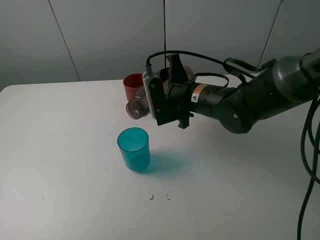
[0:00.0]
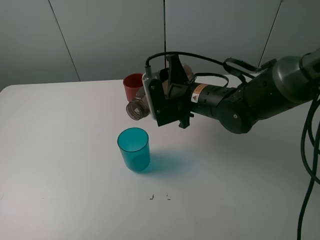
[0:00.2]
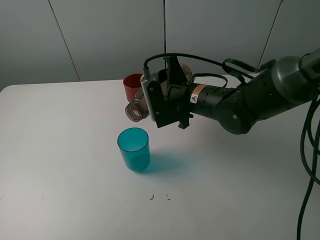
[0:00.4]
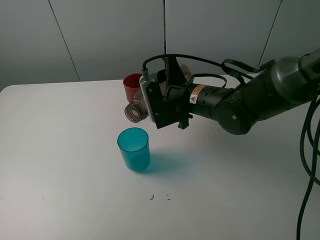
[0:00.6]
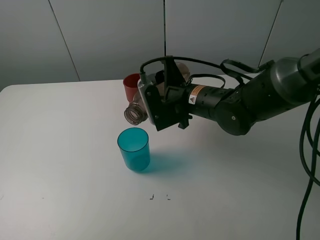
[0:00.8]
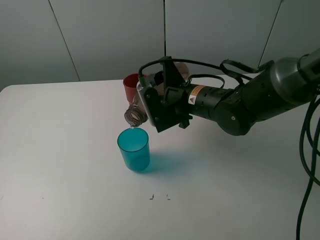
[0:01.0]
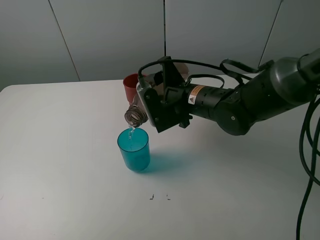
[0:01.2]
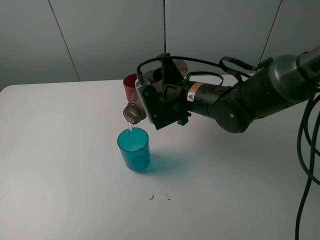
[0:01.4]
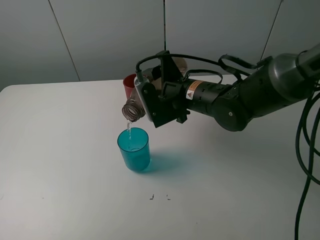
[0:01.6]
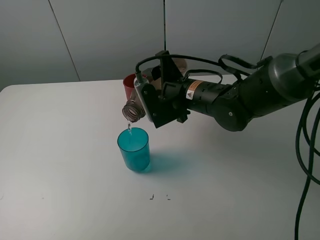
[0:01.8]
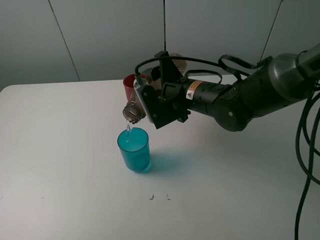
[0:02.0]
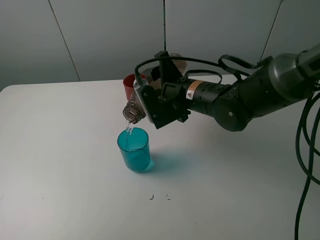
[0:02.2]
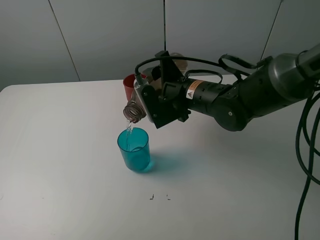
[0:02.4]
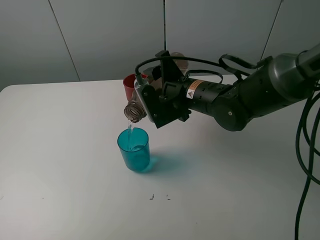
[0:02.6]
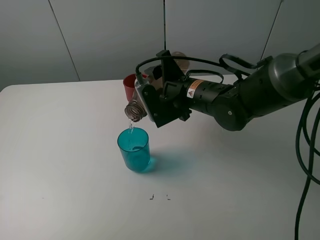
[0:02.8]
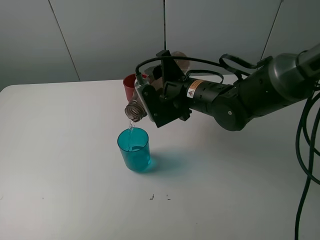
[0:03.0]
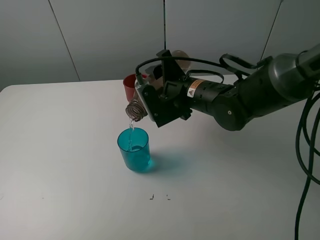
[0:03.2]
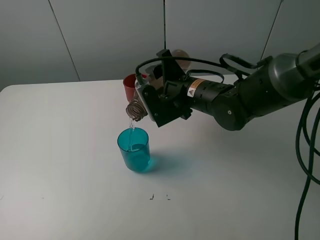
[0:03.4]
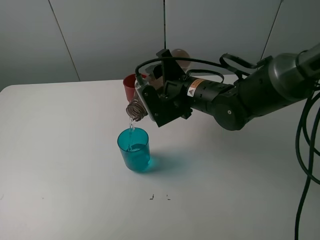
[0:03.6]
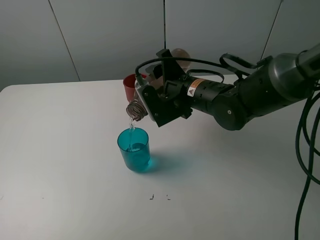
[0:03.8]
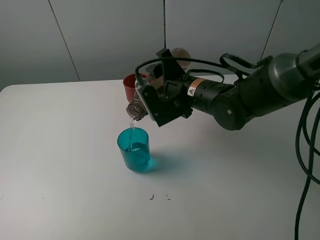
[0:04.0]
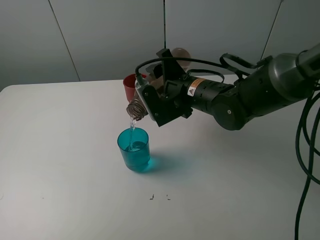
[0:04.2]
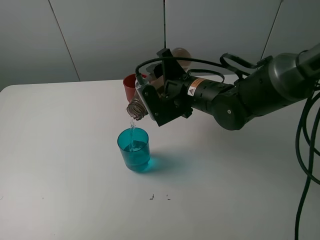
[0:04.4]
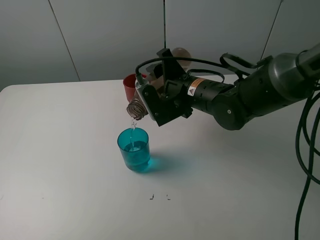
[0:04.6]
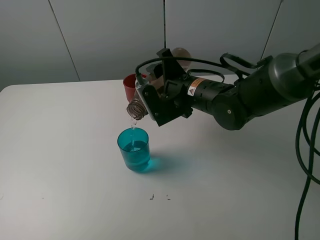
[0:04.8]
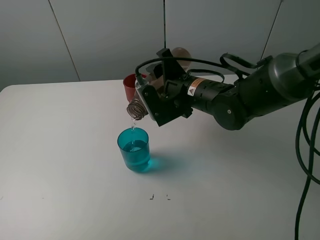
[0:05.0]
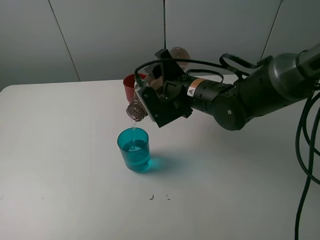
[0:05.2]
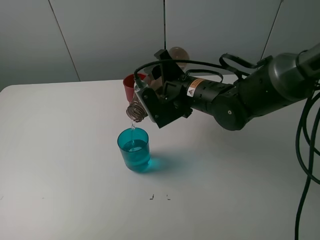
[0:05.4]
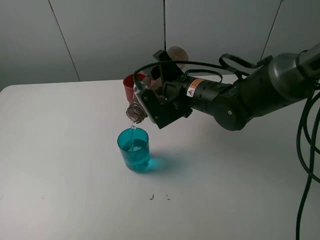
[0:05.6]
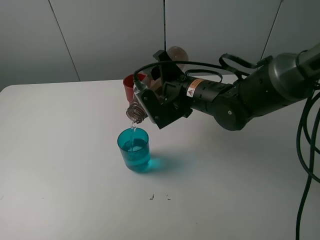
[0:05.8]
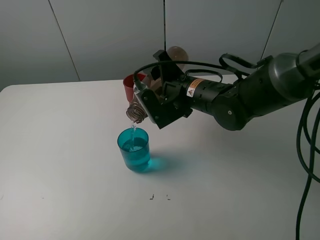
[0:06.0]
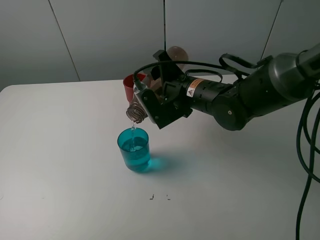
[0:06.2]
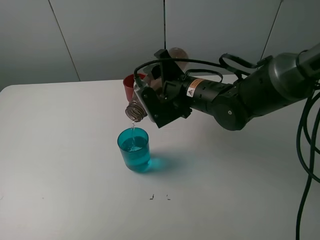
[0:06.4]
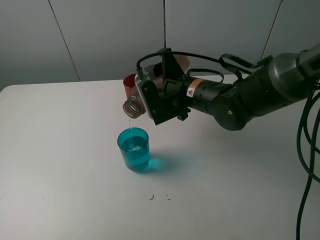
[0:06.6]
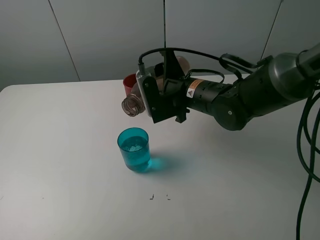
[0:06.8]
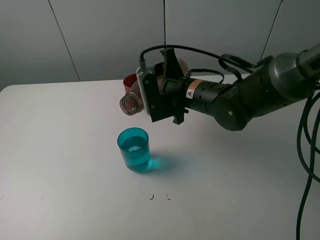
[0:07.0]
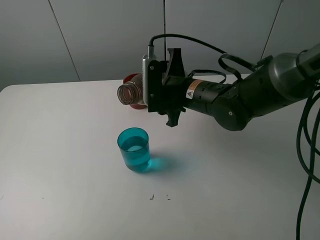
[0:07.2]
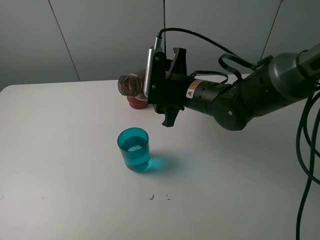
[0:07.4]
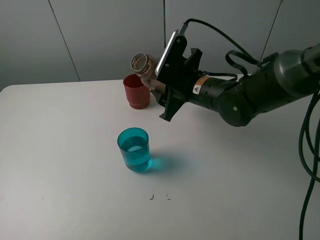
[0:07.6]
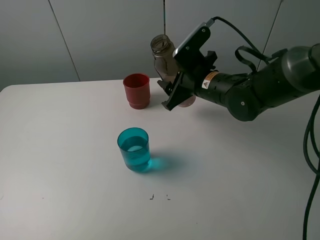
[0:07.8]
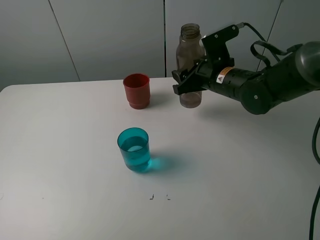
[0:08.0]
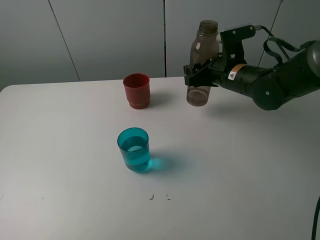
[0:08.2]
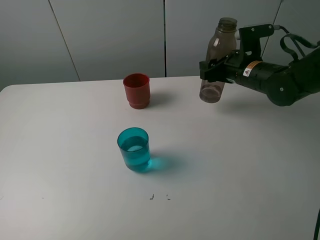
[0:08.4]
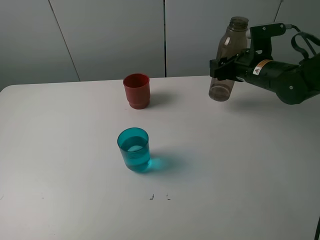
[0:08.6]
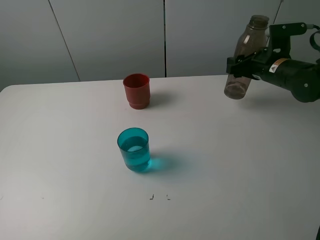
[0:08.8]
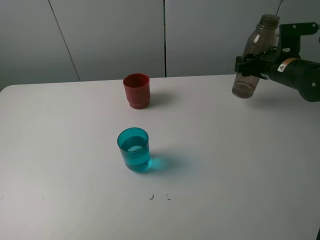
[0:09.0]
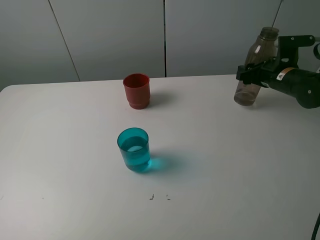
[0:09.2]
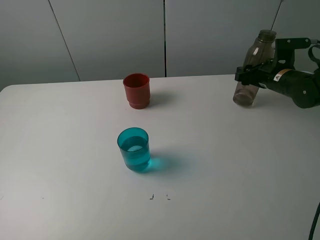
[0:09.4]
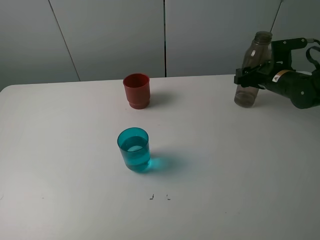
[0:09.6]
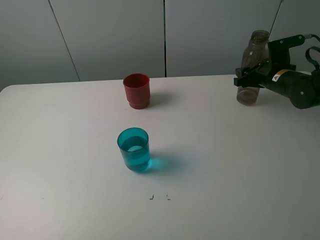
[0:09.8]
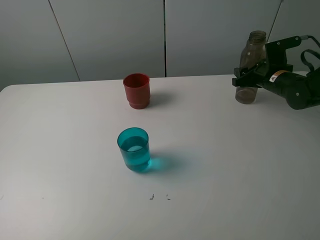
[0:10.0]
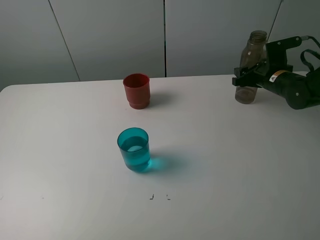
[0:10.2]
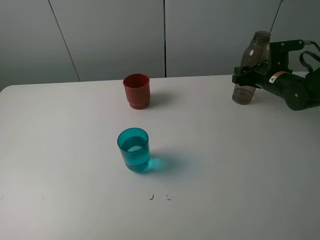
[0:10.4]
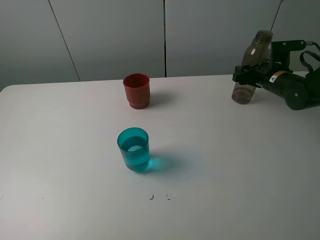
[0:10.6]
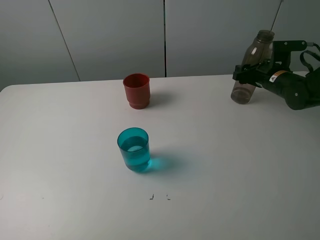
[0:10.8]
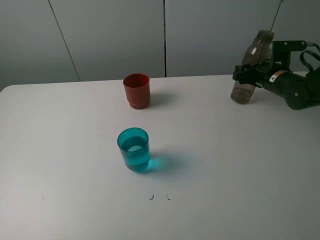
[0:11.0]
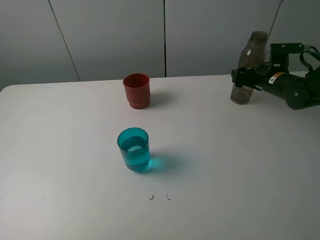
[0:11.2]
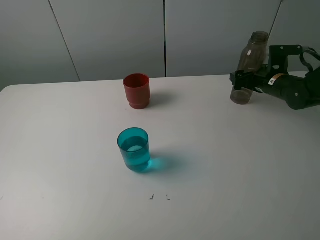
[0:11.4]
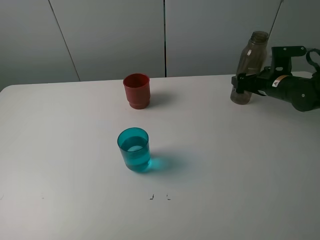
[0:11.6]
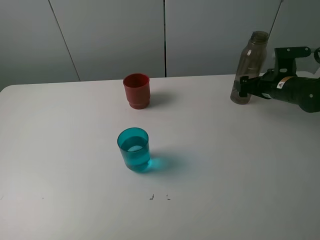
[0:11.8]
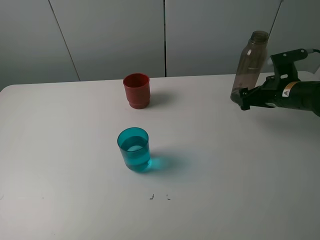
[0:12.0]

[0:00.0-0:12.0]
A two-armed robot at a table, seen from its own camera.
Task of the whole recording: pick up the bottle and pour water into the cup, then pick up the cup containing water and pour it into another cup.
Step, 0:00.0 to 0:06.6: Pour water from brown bottle to blue cup with the right gripper.
Step, 0:06.8 to 0:11.6: Place the brown bottle with the right gripper.
0:00.0 to 0:01.6: The grippers move only a little.
0:01.6 to 0:03.0: Neither gripper changes place.
0:03.0 to 0:04.4: Both grippers stay about where they are.
0:04.4 to 0:06.0: Both grippers stay about where they are.
0:07.6 to 0:09.0: The right gripper travels to the right by approximately 20 cm.
0:09.0 to 0:10.4: The right gripper shifts by roughly 5 cm.
0:10.4 to 0:12.0: The right gripper is displaced backward by about 10 cm, and opens.

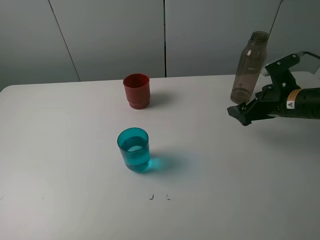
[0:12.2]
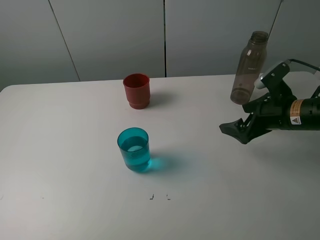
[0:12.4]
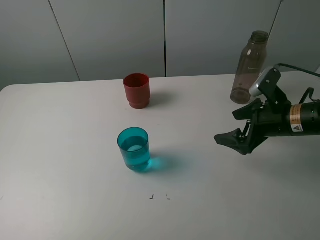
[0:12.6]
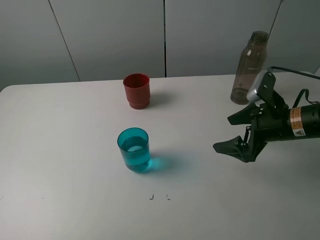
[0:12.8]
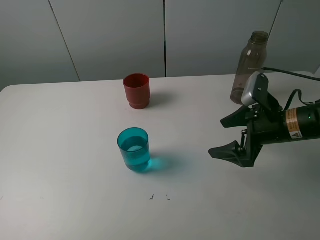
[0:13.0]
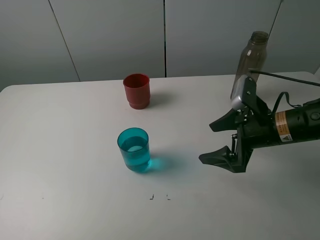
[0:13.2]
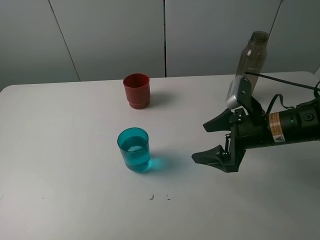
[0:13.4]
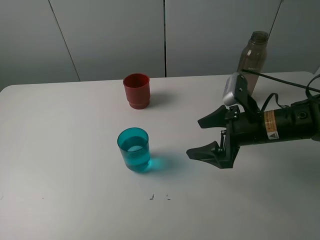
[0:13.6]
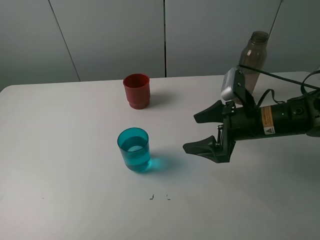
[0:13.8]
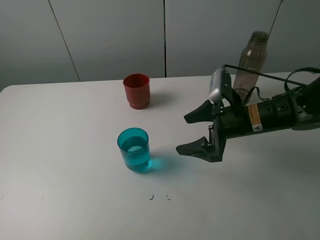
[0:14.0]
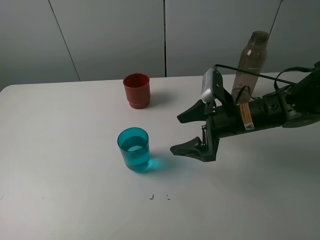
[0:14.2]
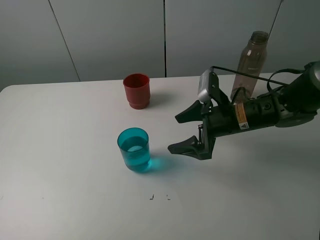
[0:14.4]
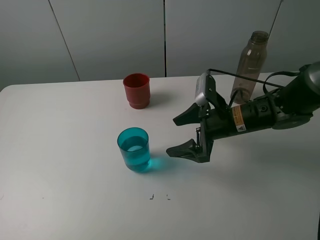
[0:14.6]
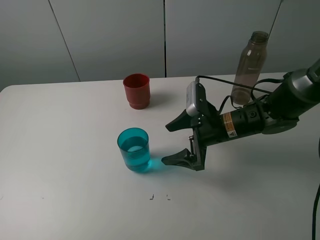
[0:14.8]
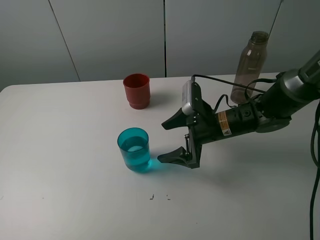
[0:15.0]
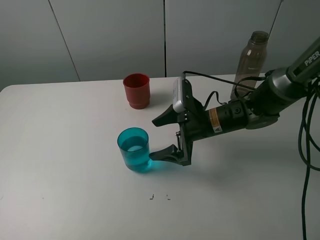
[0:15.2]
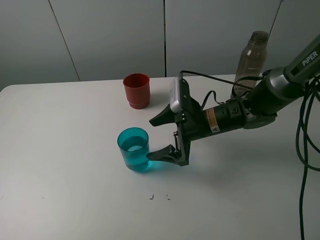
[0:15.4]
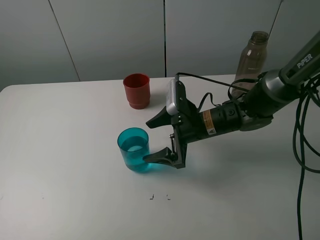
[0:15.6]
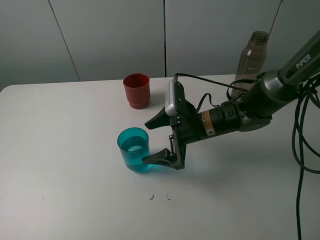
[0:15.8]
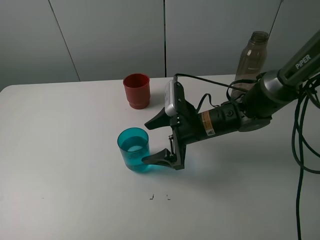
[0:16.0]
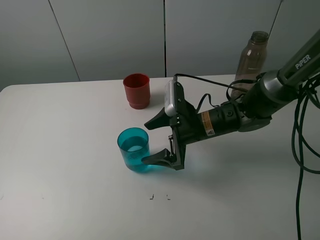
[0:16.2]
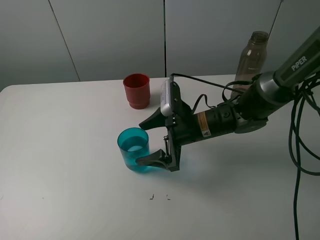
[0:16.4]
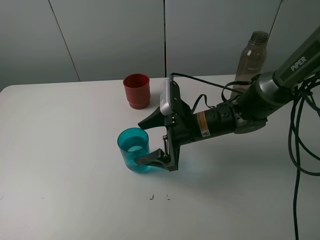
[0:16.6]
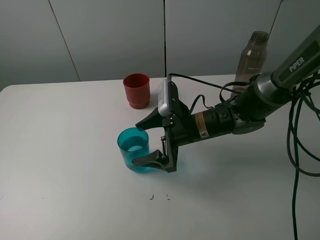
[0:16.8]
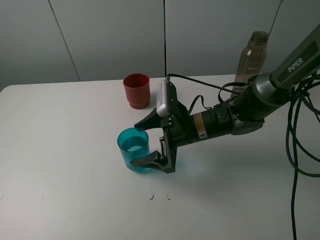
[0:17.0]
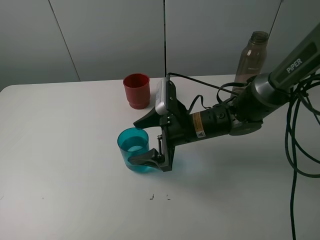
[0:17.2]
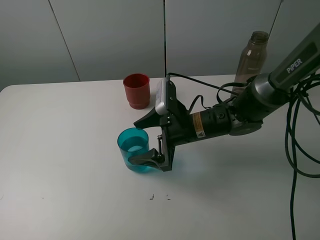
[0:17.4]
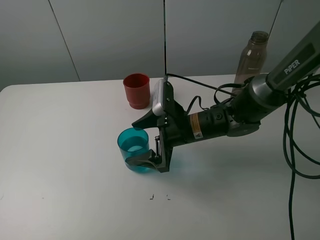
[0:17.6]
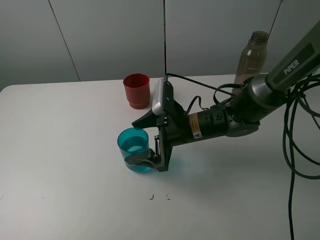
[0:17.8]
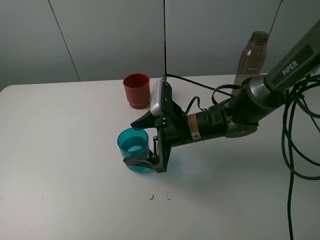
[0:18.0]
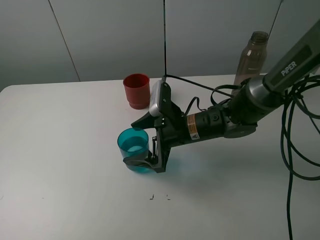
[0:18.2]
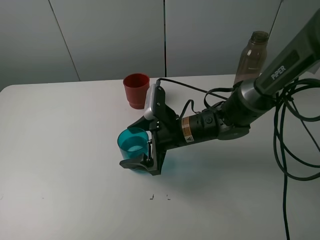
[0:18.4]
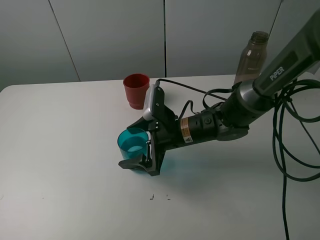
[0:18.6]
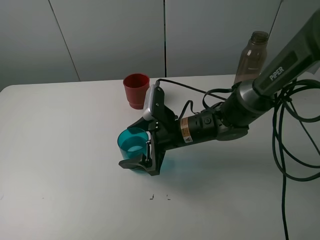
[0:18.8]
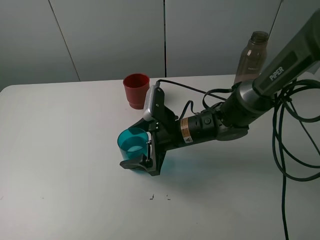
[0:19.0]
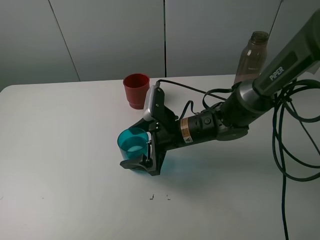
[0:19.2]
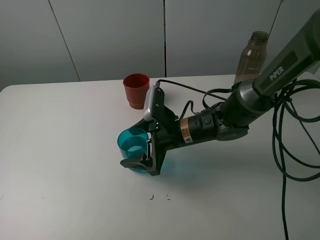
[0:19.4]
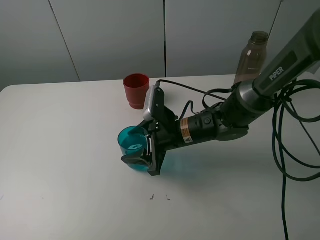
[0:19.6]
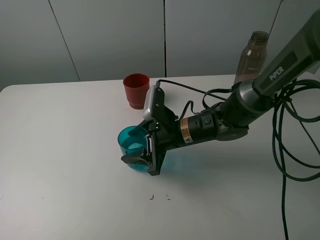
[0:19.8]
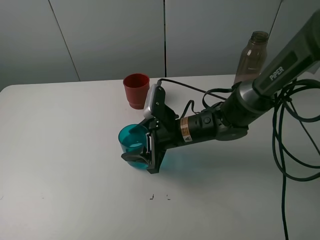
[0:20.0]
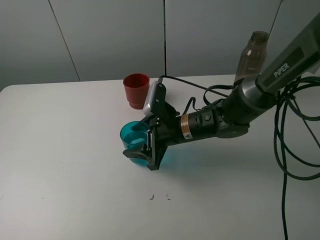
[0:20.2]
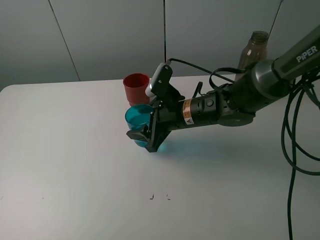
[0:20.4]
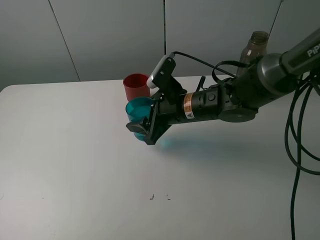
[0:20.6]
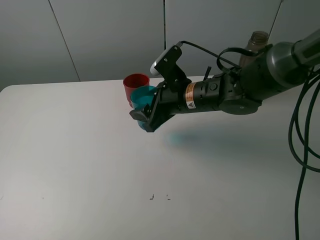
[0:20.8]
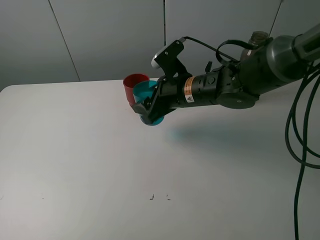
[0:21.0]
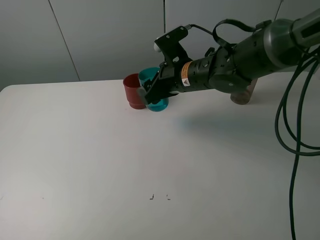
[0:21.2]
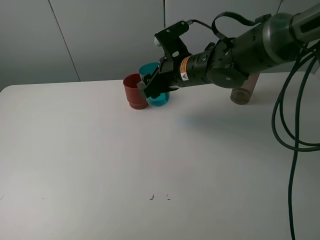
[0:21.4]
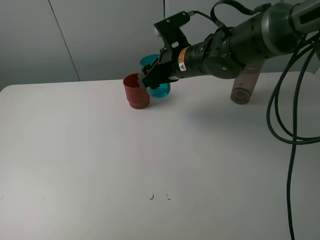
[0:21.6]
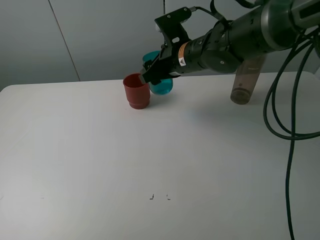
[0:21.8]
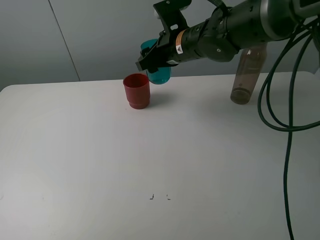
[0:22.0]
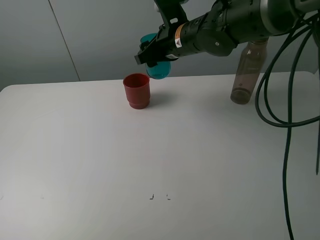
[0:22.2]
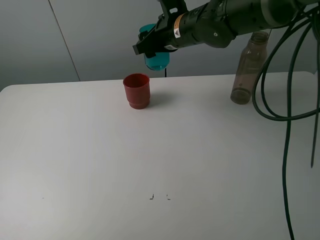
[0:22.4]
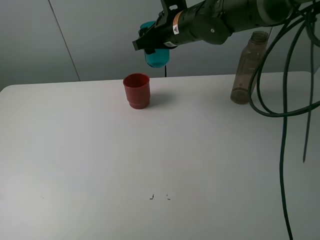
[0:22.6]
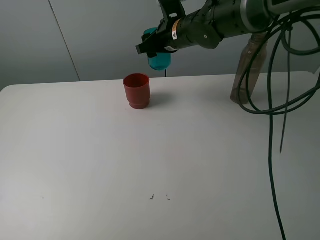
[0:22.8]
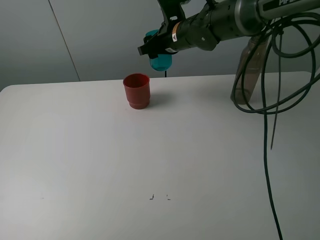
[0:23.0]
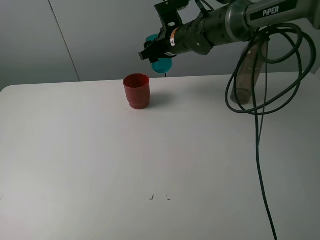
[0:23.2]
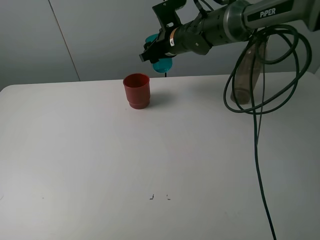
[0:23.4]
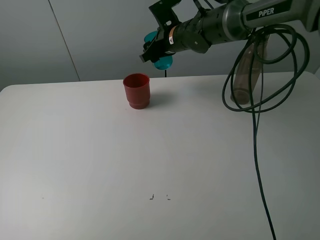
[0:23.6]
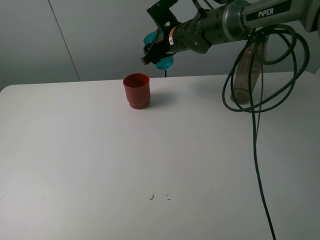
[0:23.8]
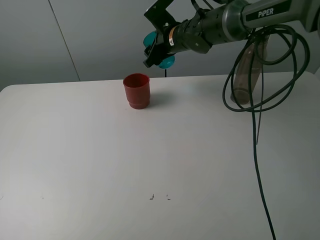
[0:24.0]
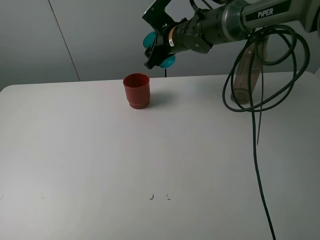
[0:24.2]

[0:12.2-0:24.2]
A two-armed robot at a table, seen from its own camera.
Task of the whole recording: pick up the bottle and pour water into the cup, then pick up the cup containing water and pour it into another cup.
Step, 0:12.2 to 0:19.4: Grasp the blue cup with the right gripper.
0:12.2 to 0:13.8: The right gripper is displaced to the left by about 10 cm.
0:13.8 to 0:15.2: The right gripper heads to the left, covering roughly 10 cm.
0:15.2 to 0:18.2: The grippers stay close to where they were, moving slightly.
0:18.2 to 0:19.8: The right gripper closes.
0:19.8 to 0:21.2: The right gripper travels upward and forward by approximately 10 cm.
0:21.2 to 0:22.6: The right gripper heads upward and forward, covering roughly 10 cm.
0:22.6 to 0:24.2: The right gripper shifts roughly 5 cm forward.
